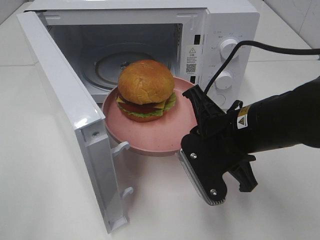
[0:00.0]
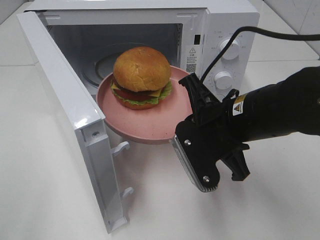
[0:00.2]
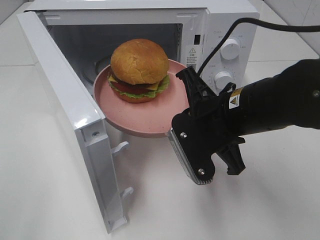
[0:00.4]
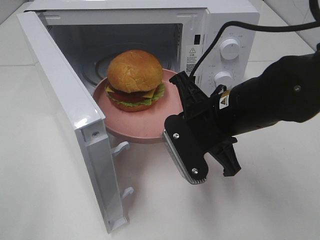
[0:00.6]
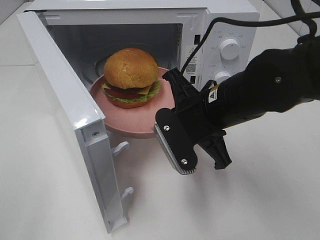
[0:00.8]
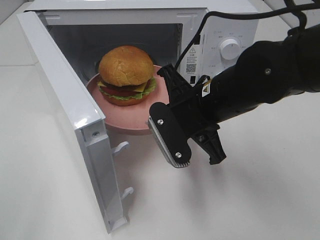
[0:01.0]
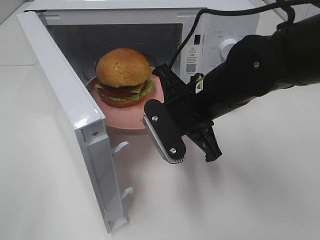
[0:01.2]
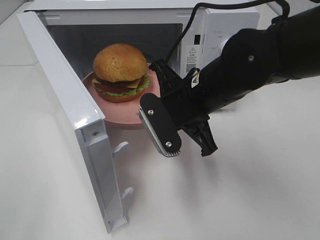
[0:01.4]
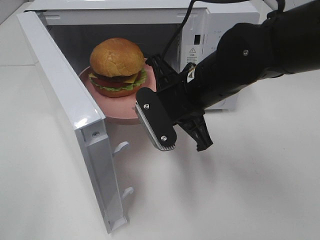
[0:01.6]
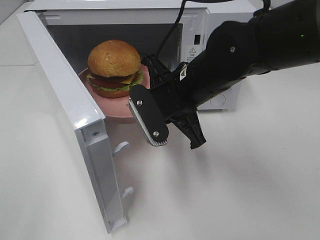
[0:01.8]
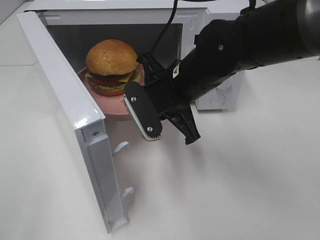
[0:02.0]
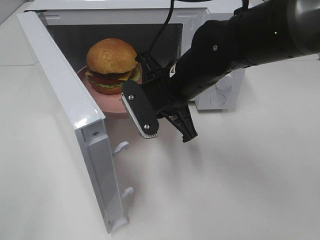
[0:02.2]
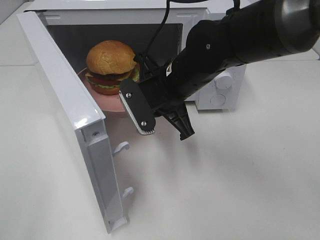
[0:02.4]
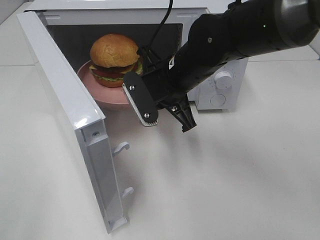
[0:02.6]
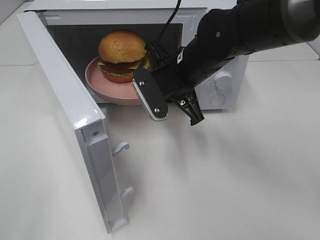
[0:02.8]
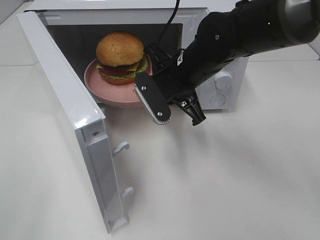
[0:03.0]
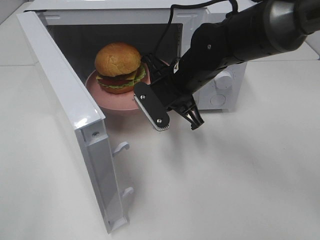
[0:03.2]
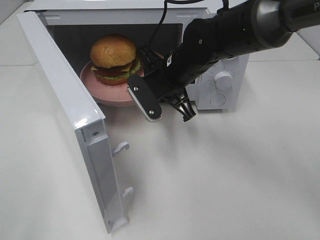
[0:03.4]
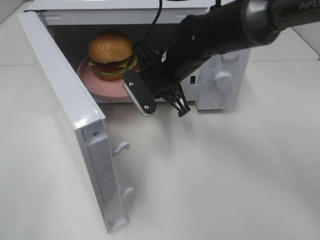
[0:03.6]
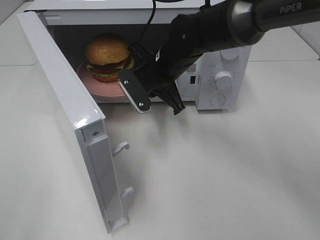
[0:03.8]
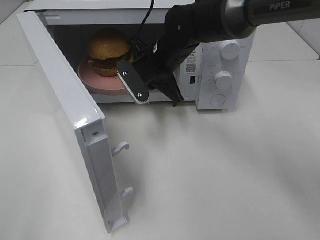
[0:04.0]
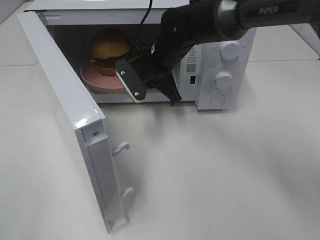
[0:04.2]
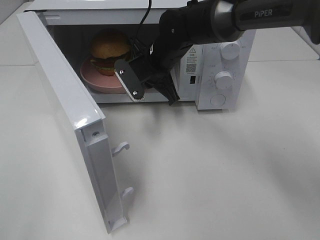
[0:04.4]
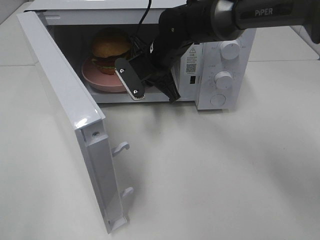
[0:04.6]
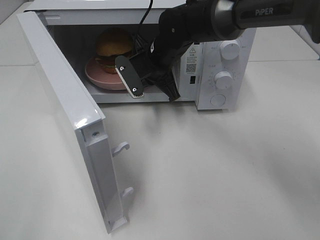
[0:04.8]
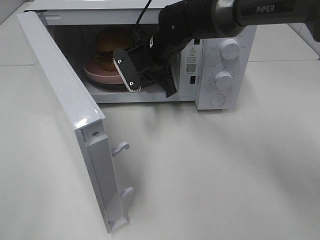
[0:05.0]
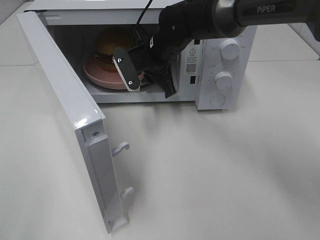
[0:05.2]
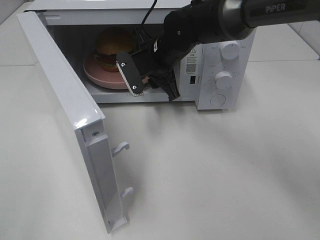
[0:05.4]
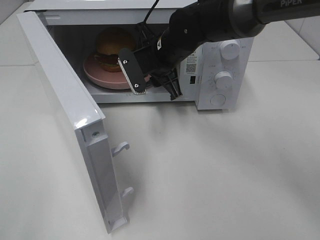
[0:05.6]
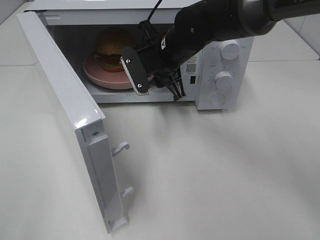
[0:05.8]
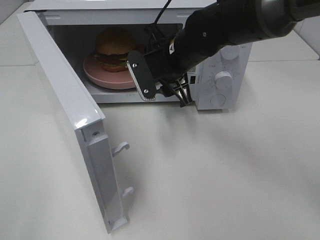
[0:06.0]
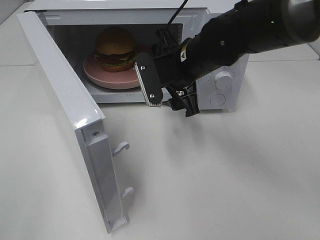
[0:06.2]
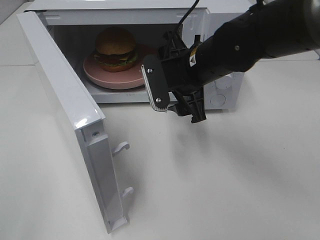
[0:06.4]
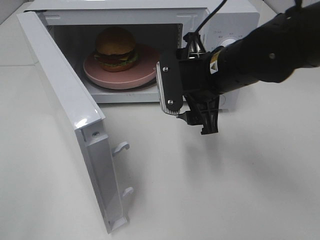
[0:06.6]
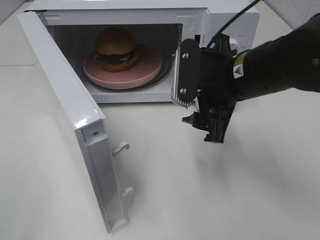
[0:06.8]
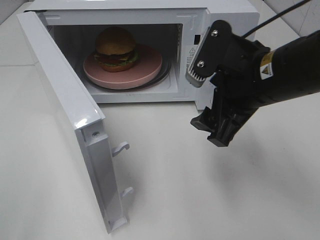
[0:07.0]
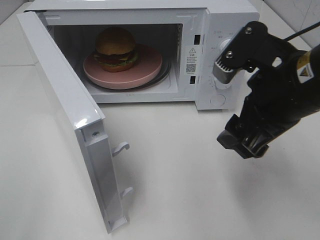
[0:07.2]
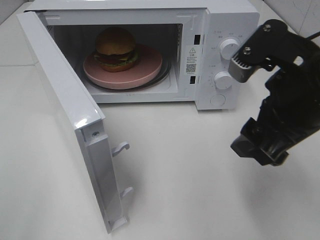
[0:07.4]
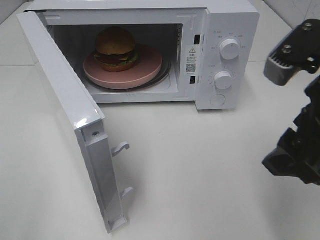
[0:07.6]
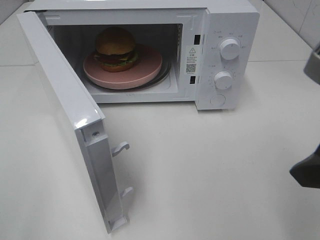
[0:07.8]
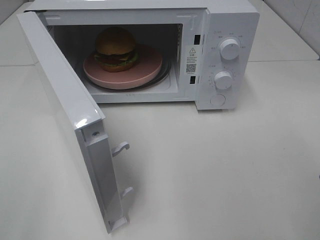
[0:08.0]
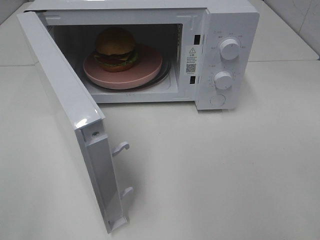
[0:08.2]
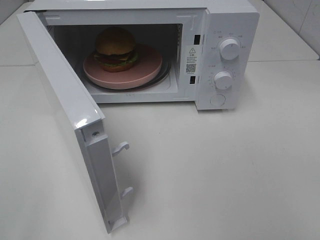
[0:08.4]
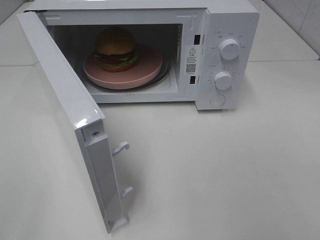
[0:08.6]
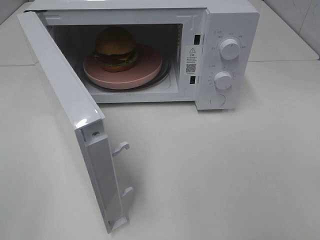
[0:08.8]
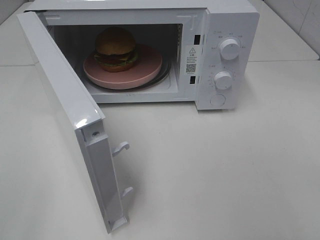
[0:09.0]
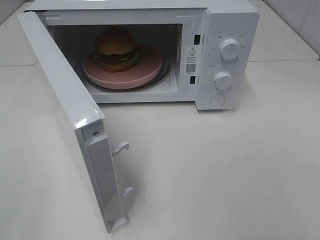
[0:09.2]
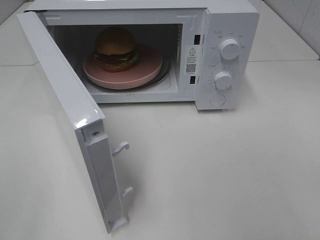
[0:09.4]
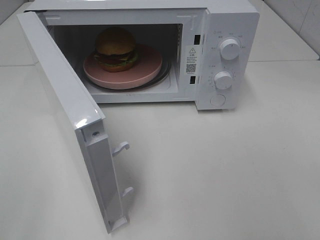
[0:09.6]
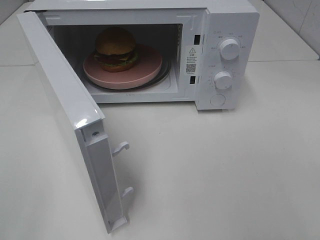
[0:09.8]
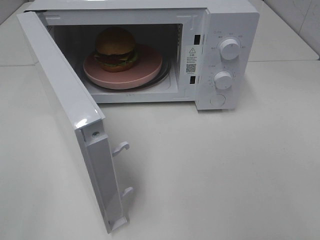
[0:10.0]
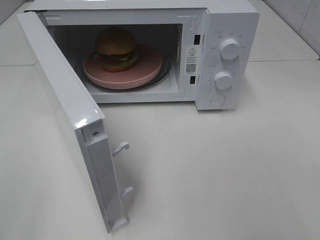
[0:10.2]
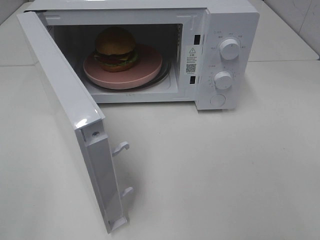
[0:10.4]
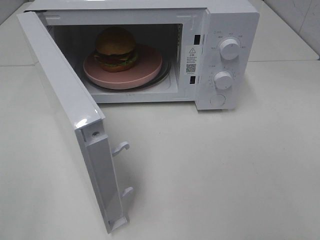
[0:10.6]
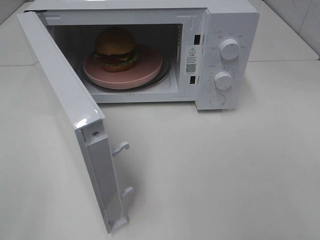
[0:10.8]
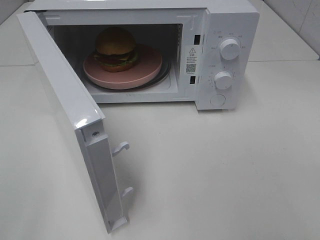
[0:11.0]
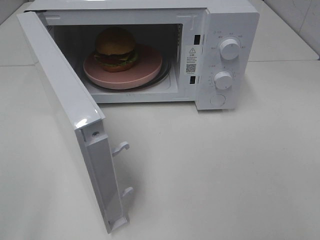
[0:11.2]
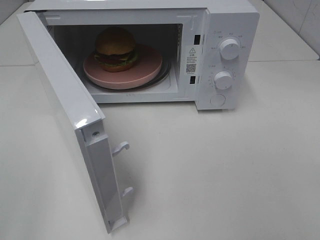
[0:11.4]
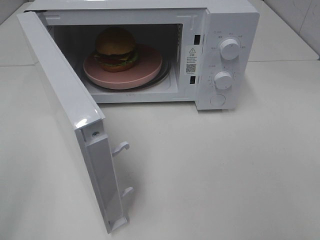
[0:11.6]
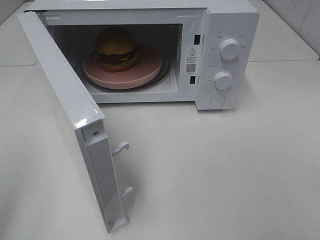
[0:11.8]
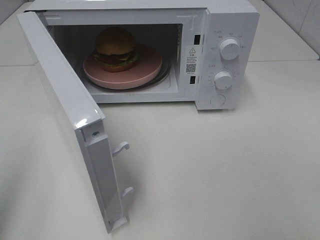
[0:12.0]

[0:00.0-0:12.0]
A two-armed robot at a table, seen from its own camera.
Task of the whole recording: Heat the burger.
Step, 0:00.0 to 0:05.2: Right hand: place the plate in the microwave.
0:00.0 to 0:01.6: The right gripper moves forward and to the left, approximately 10 cm.
0:01.6 to 0:03.0: The right gripper travels forward by approximately 5 cm.
0:03.0 to 0:04.4: The right gripper shifts some 10 cm forward.
0:04.4 to 0:06.0: The right gripper changes place by some 5 cm, and opens up.
0:06.0 to 0:07.6: The right gripper goes roughly 30 cm backward, to the right and upward.
0:07.6 to 0:09.0: The right gripper moves backward and to the right, about 20 cm.
0:09.0 to 0:10.4: Neither gripper changes place.

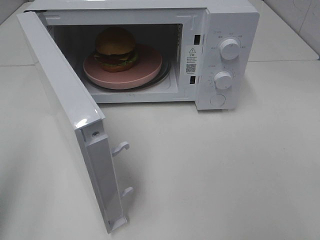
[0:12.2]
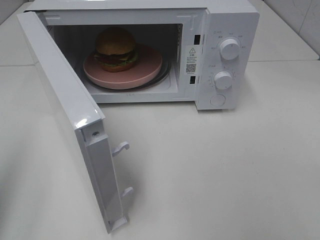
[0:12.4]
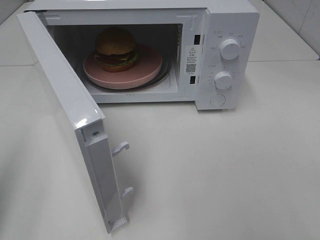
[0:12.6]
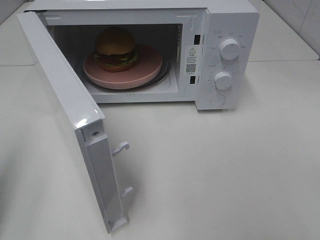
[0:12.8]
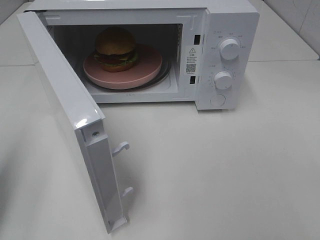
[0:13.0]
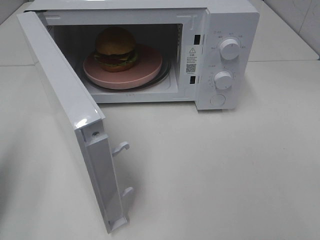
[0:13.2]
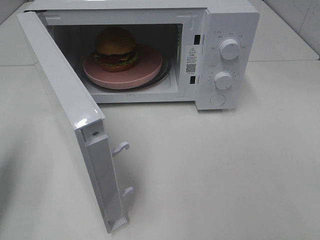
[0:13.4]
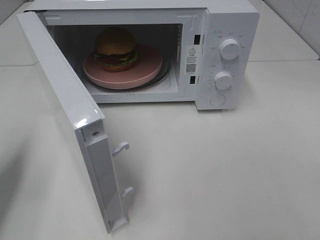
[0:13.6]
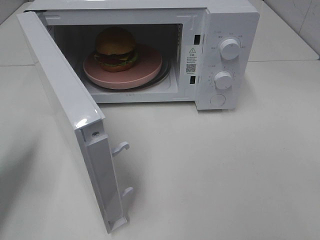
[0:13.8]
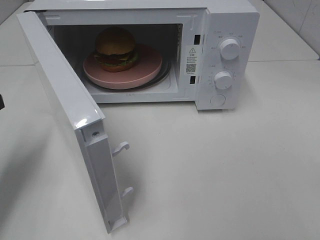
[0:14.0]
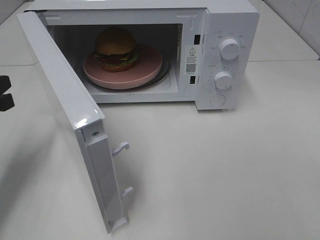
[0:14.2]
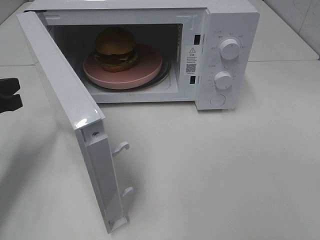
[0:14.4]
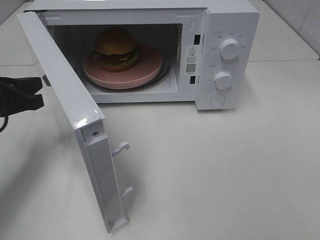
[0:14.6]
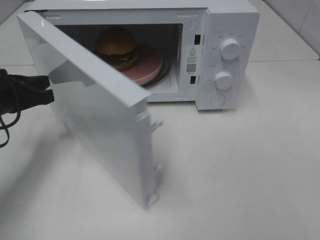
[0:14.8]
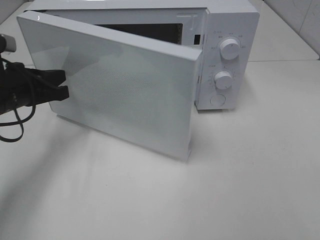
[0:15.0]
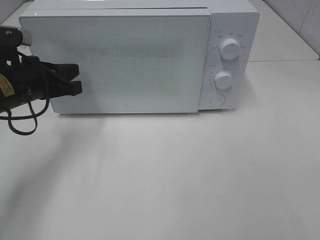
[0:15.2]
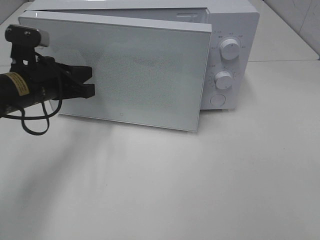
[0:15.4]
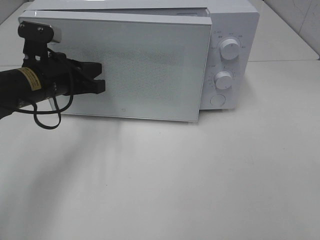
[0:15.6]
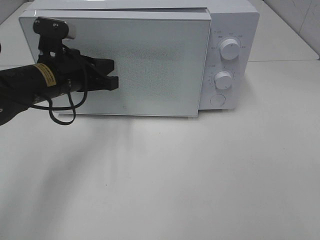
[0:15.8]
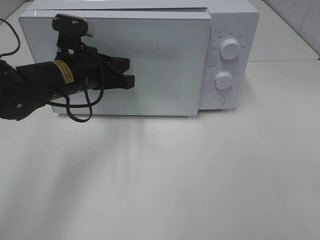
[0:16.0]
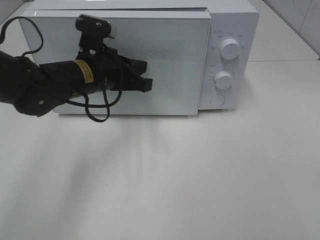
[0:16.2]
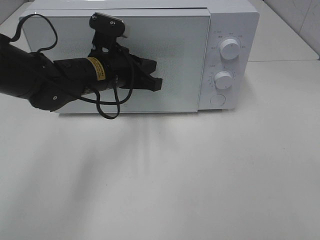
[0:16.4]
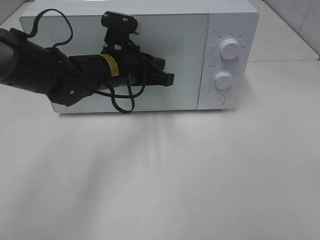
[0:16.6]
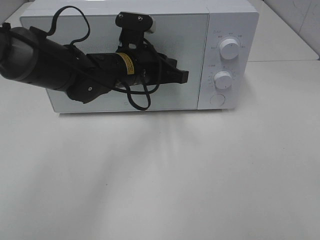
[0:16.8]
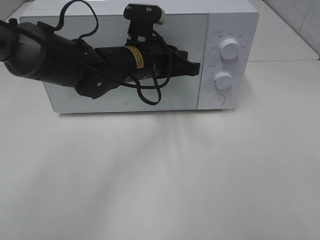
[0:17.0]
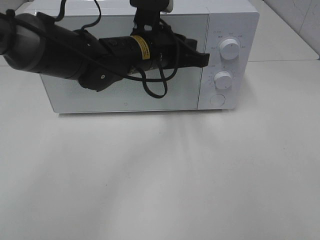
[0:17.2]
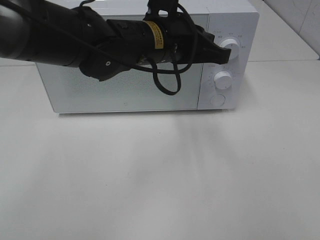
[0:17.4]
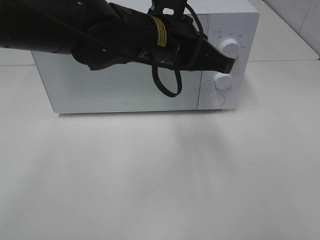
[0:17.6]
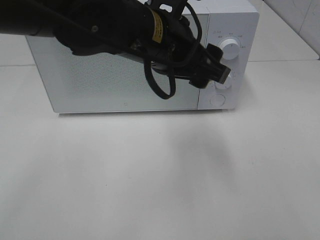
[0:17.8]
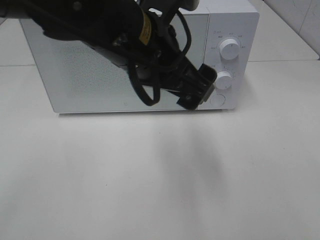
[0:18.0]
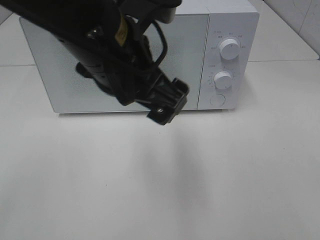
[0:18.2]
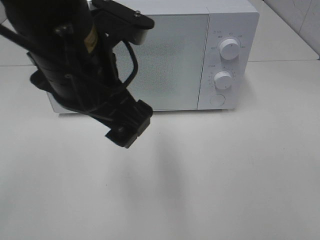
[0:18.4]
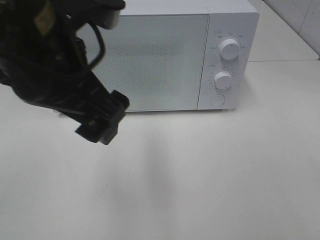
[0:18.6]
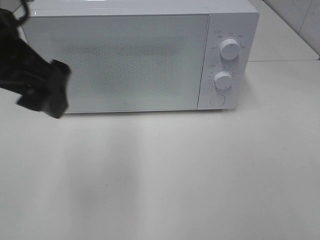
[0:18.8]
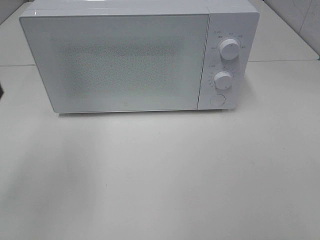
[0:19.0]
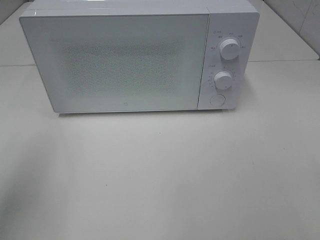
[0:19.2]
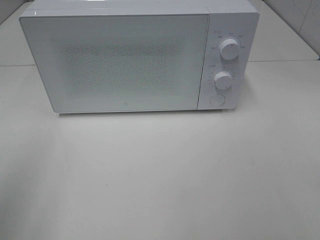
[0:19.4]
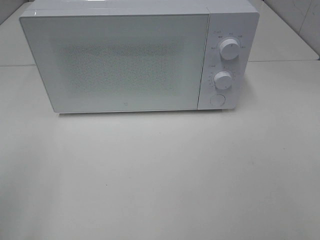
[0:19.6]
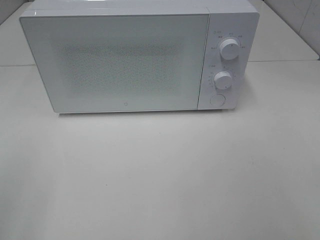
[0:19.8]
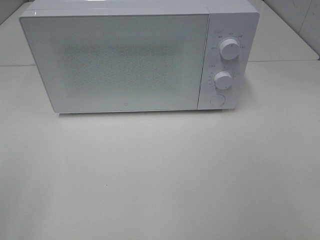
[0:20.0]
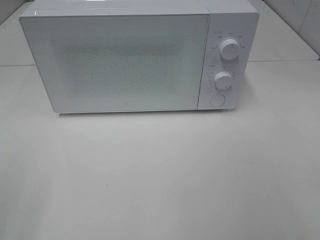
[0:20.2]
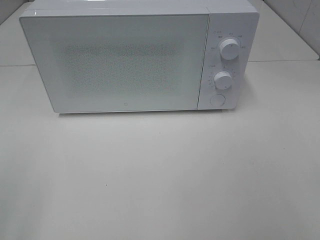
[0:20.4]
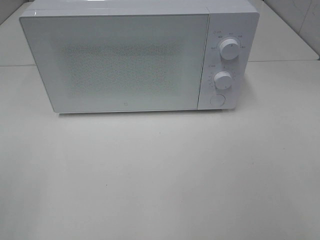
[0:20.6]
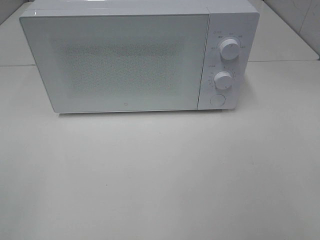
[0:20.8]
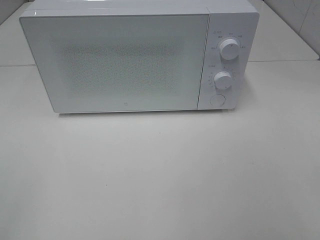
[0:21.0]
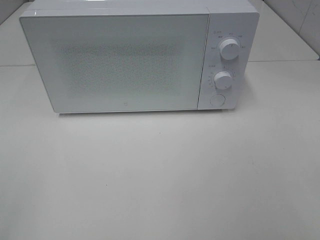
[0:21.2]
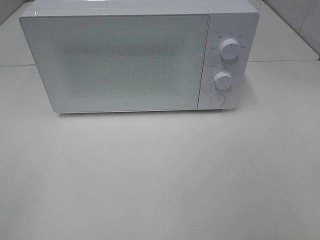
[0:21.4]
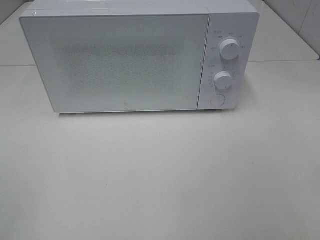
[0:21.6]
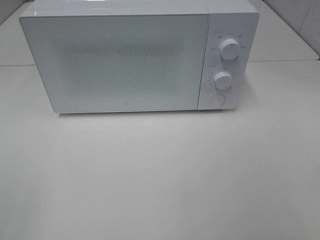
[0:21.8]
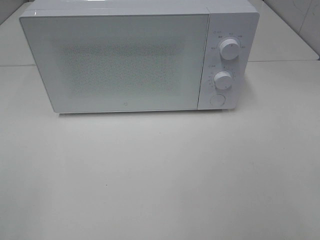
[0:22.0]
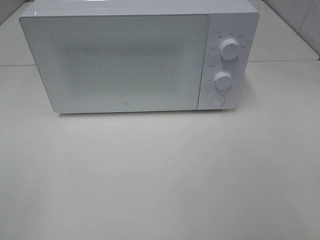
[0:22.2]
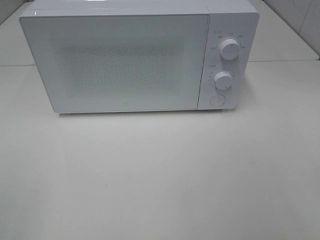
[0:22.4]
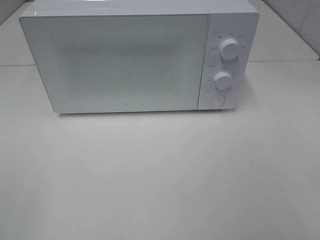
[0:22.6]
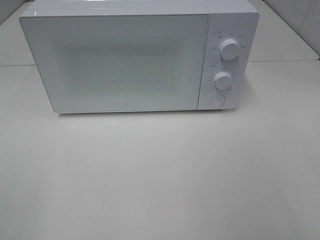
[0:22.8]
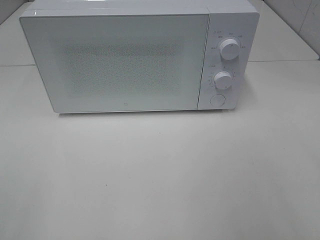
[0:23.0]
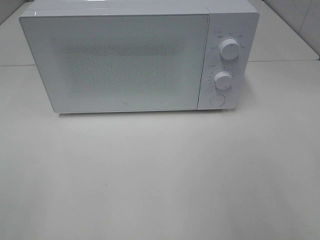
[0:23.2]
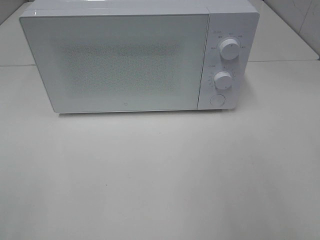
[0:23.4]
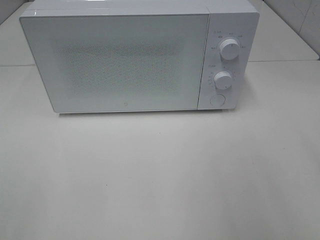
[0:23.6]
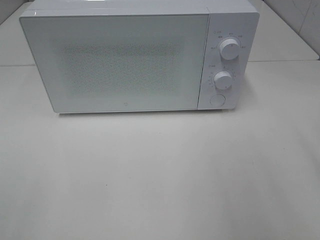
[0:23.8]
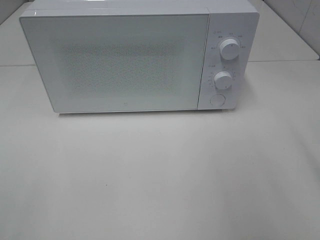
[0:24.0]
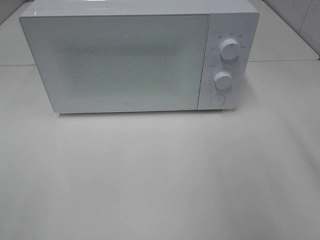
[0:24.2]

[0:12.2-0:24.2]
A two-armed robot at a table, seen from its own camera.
Task of the whole recording: Heat the burger.
Step, 0:12.2 to 0:17.0: Left hand: close the microwave door.
0:12.2 to 0:13.8: The left gripper is displaced forward and downward by roughly 15 cm.
0:13.8 to 0:15.2: The left gripper heads forward and to the right, covering some 15 cm.
0:15.2 to 0:16.6: The left gripper shifts approximately 15 cm to the right.
0:16.6 to 0:18.2: The left gripper shifts roughly 20 cm backward and upward, and opens its fingers.
0:18.2 to 0:19.8: The left gripper travels to the left and backward by approximately 35 cm.
